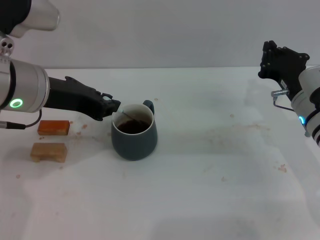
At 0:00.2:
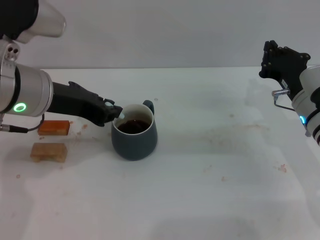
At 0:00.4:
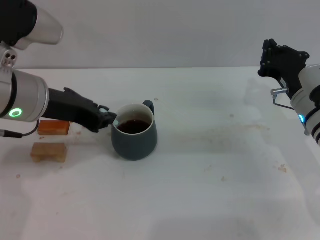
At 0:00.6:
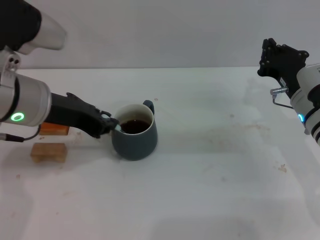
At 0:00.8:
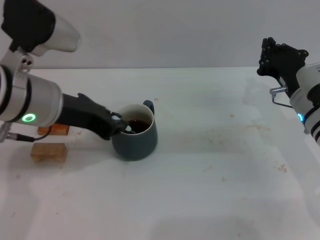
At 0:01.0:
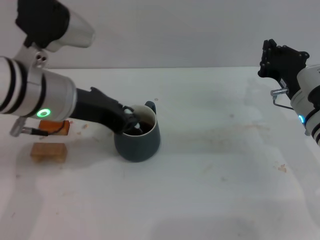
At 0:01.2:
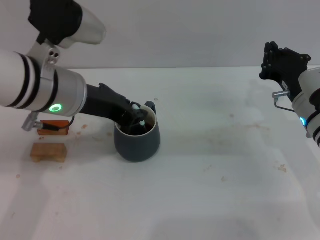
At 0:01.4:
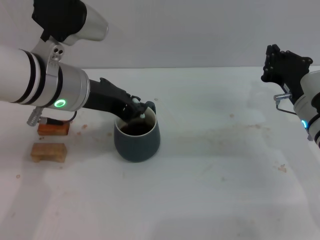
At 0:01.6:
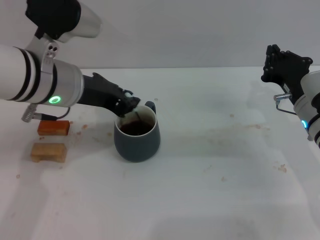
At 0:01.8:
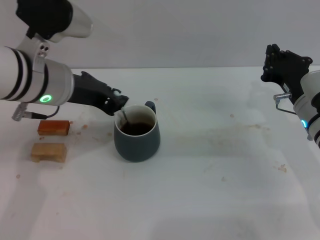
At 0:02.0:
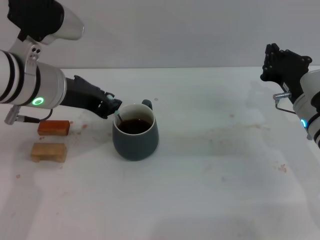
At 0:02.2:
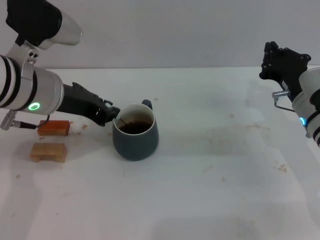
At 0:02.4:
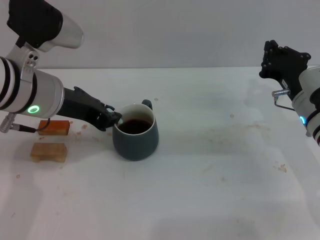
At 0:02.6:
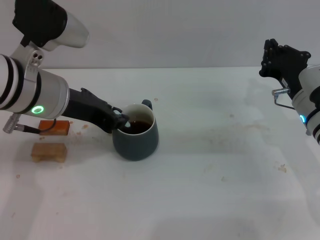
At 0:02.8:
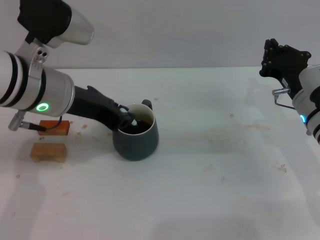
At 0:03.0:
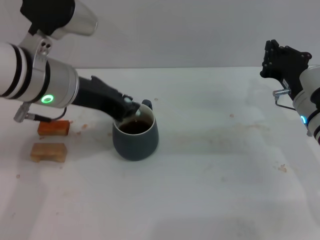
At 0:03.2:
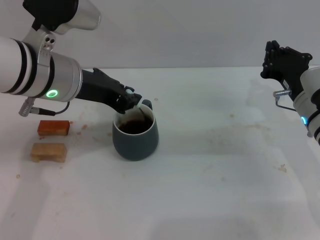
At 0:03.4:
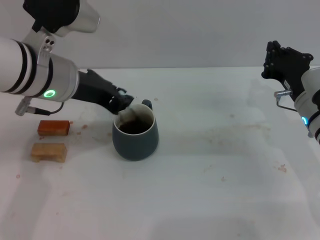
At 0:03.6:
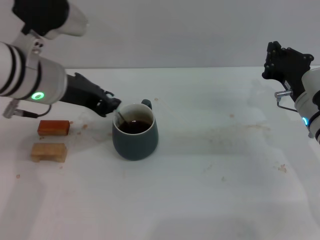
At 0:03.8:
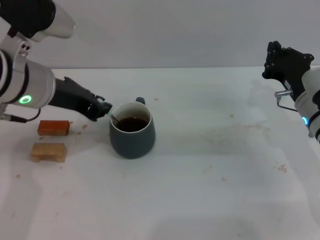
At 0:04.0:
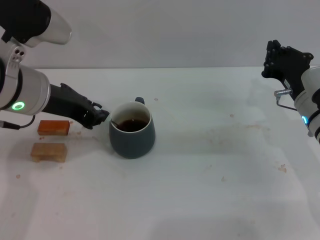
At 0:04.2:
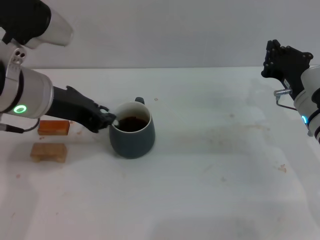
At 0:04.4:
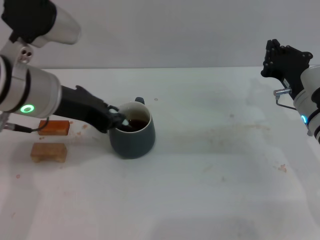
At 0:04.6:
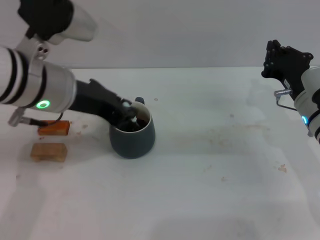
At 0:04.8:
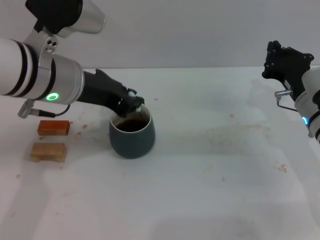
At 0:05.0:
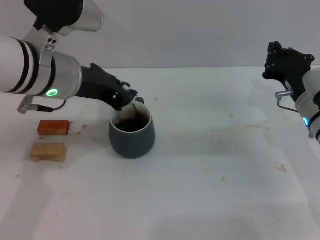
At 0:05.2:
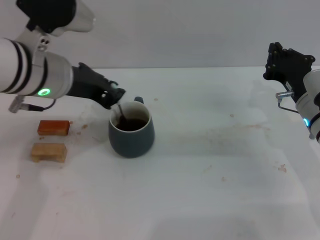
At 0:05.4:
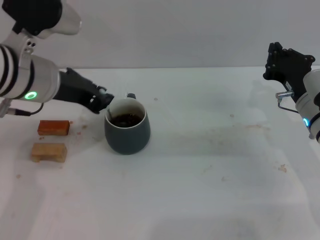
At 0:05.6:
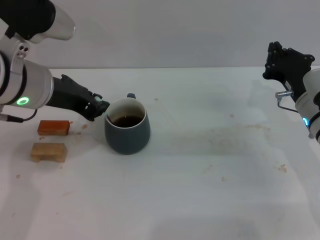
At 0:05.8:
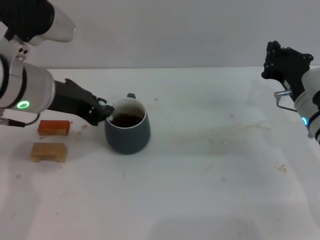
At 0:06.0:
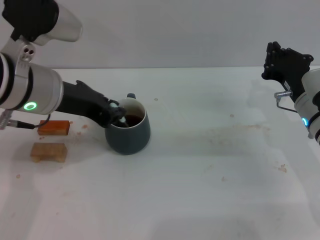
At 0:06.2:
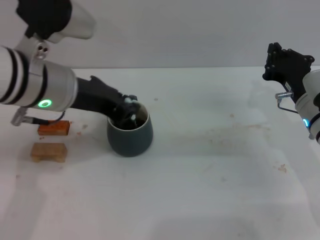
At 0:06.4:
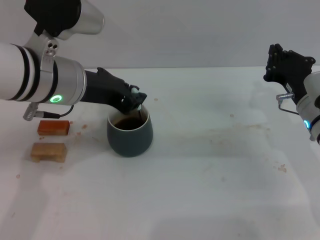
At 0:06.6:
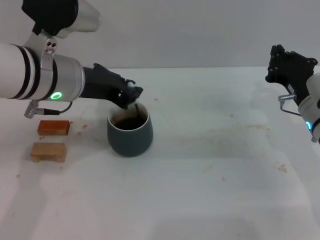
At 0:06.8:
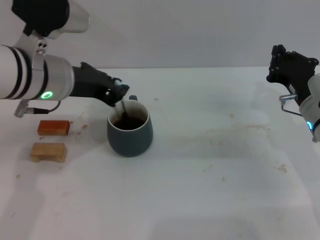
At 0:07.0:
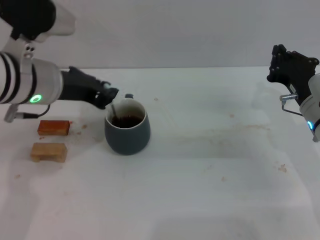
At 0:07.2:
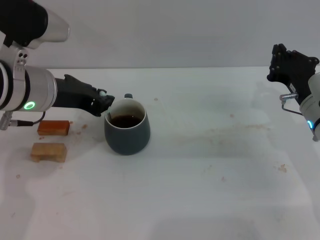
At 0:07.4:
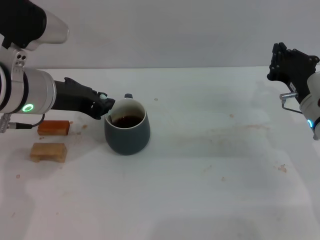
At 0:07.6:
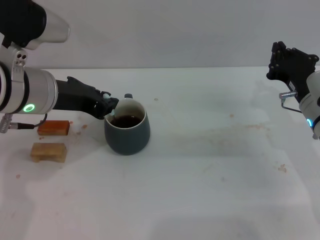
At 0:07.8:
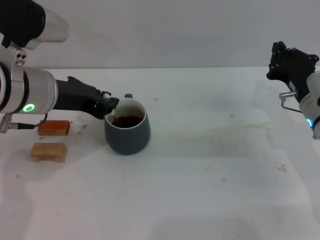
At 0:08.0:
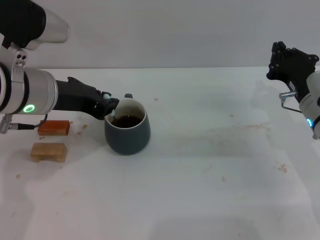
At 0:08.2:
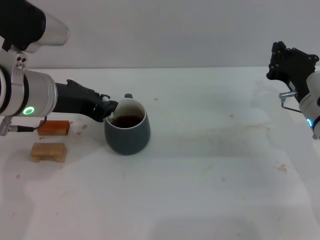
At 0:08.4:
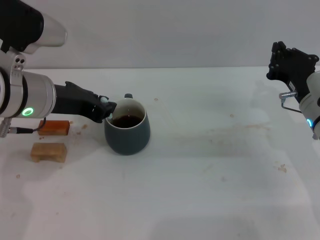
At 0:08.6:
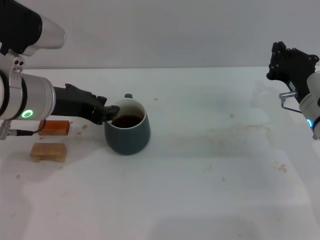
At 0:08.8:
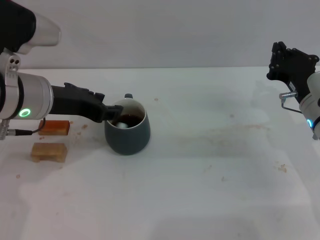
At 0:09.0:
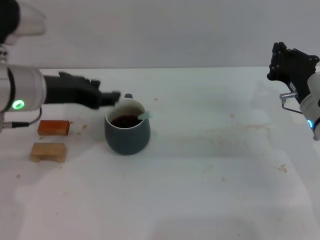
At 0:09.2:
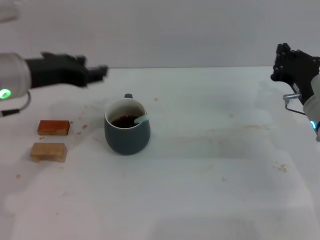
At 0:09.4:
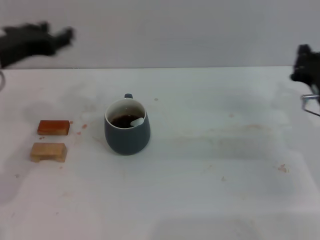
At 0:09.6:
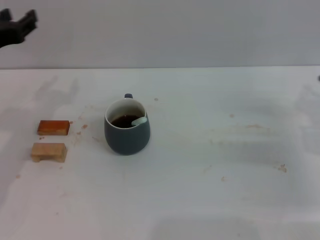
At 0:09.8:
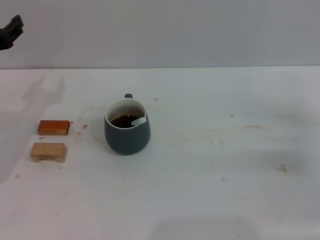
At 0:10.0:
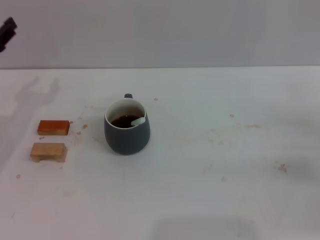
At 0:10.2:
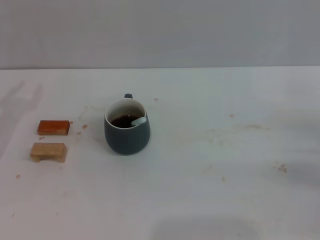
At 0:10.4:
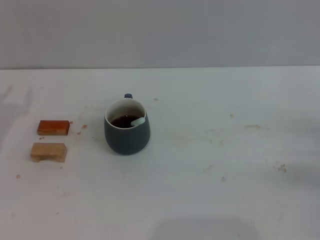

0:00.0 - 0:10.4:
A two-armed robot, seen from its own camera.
Task of the whole recording: Move the grey cup to the center, lift the blue spoon, stir it three times in the cup, and put the spoon into the cup.
Step, 0:00.0 - 0:08.8: Stir the coffee in the cup with the left gripper.
0:00.0 - 0:07.4: The grippers make only small movements.
0:07.4 - 0:09.0: The left gripper opens its fingers.
0:09.0 - 0:10.4: The right gripper is displaced to the right and backward by some 15 cm; the left gripper moves to the left and downward, about 20 cm.
